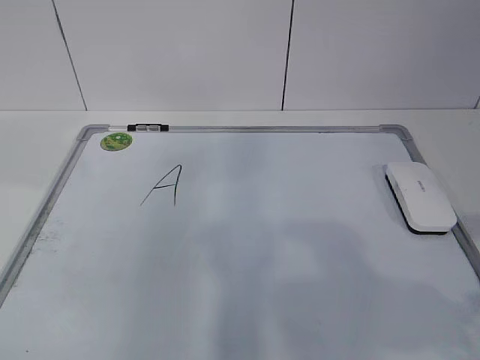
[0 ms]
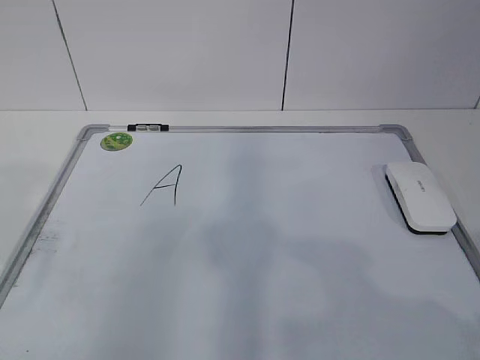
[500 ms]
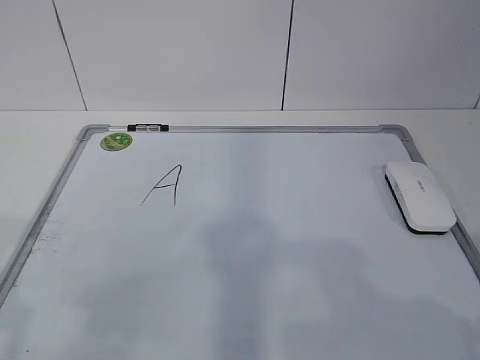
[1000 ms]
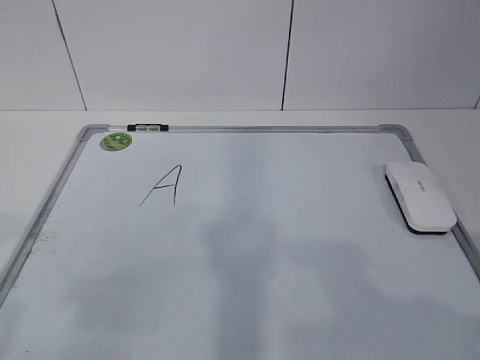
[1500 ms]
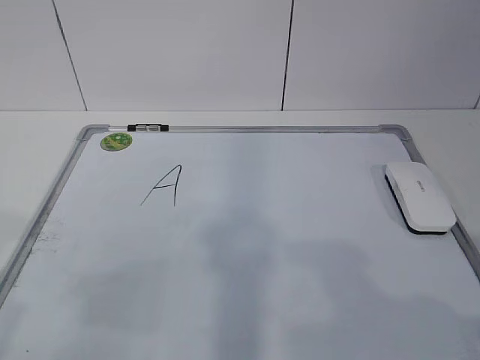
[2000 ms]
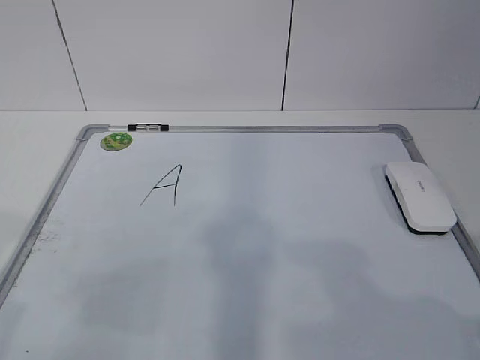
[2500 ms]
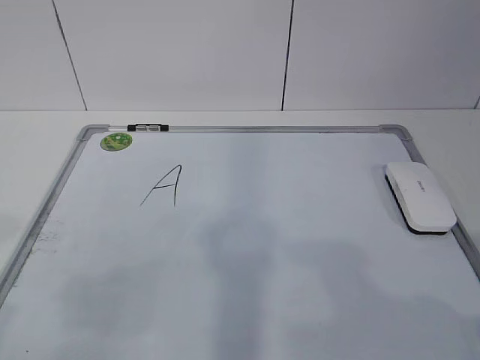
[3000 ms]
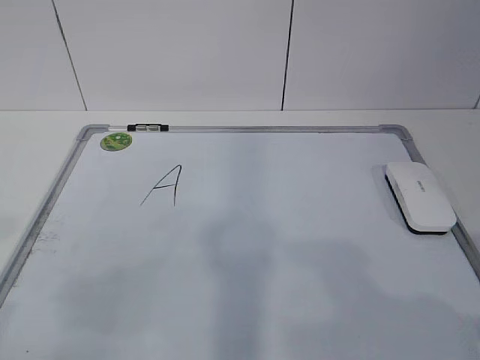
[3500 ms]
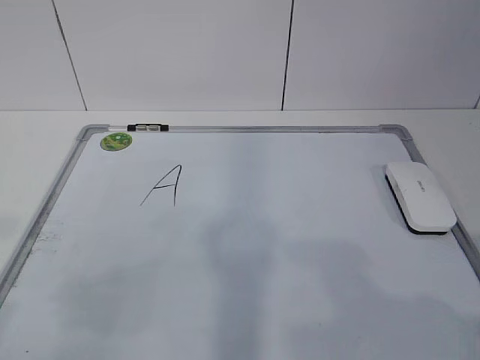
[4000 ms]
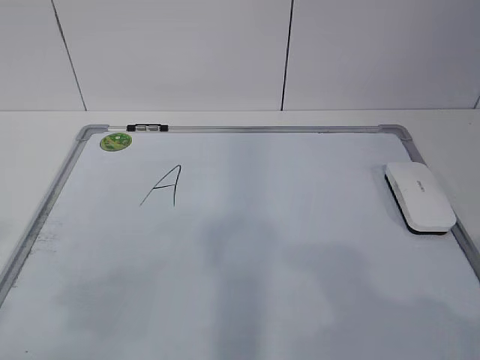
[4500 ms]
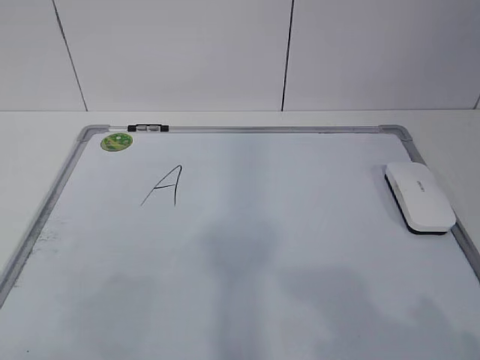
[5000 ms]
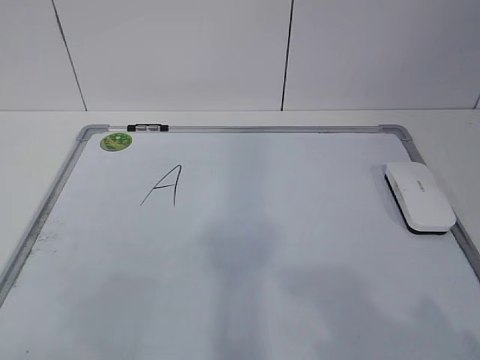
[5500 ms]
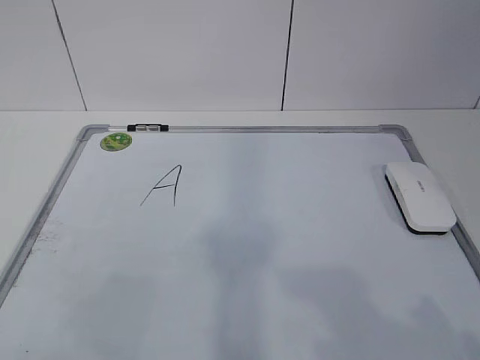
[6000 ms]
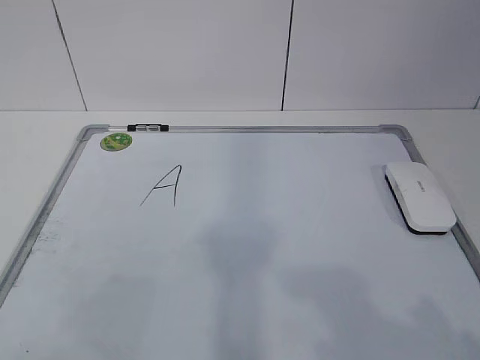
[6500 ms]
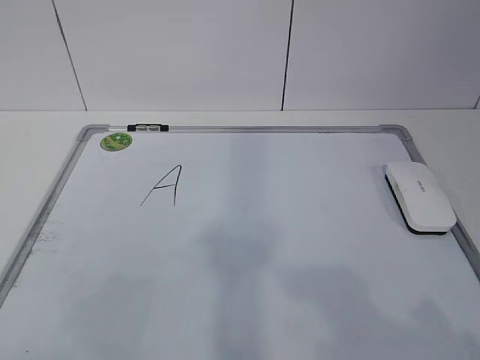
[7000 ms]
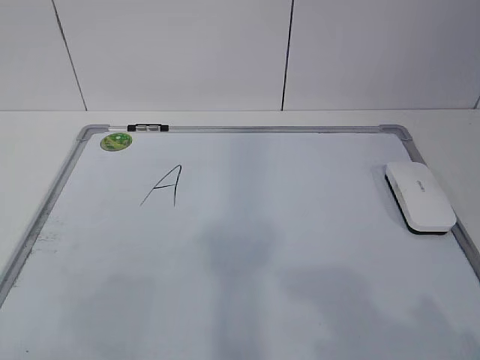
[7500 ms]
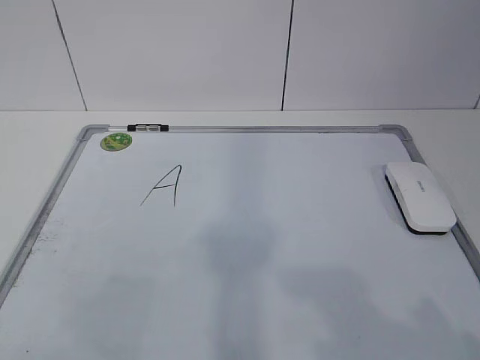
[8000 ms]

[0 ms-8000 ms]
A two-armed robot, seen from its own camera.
Task of the whole recording: pick up the eraser on the blackboard and erase the letter "a".
6000 ms to 8000 ms: Neither gripper changes place.

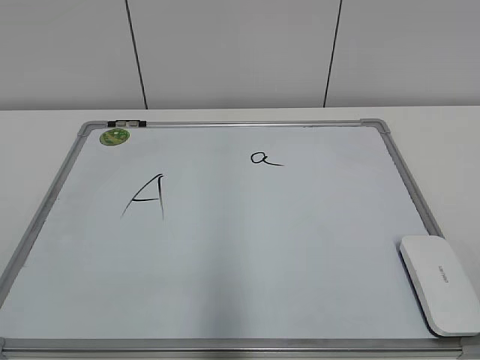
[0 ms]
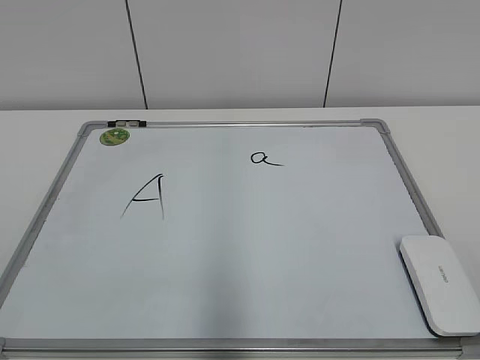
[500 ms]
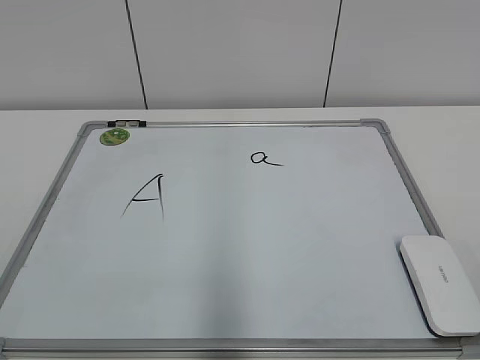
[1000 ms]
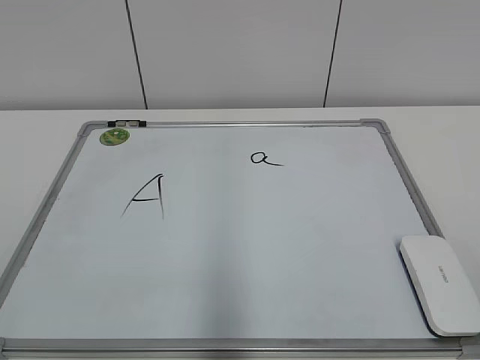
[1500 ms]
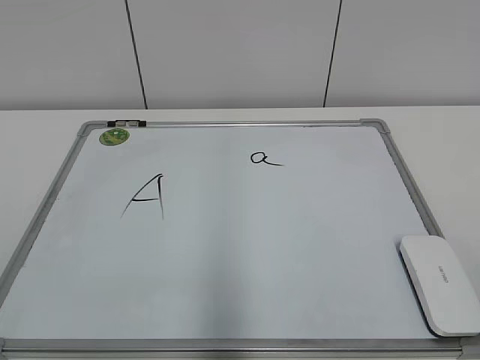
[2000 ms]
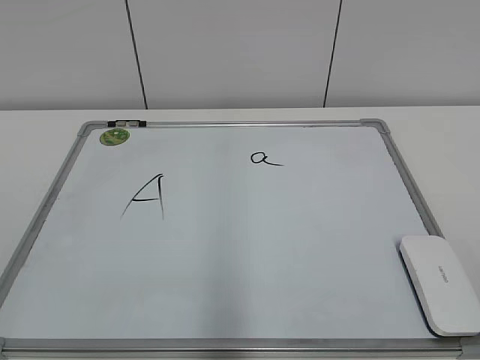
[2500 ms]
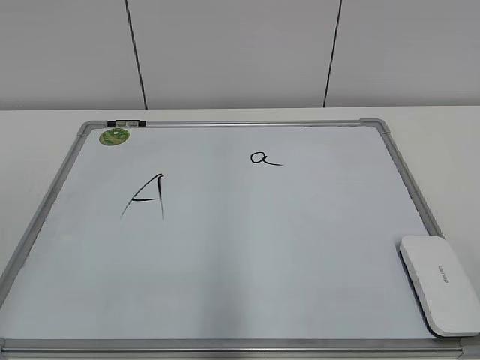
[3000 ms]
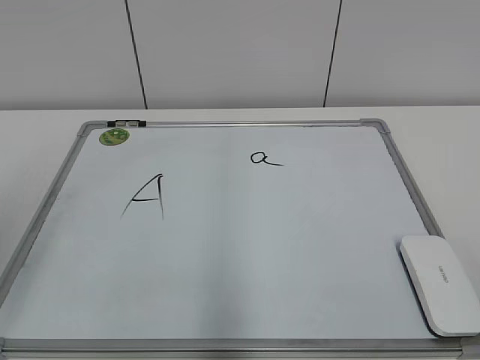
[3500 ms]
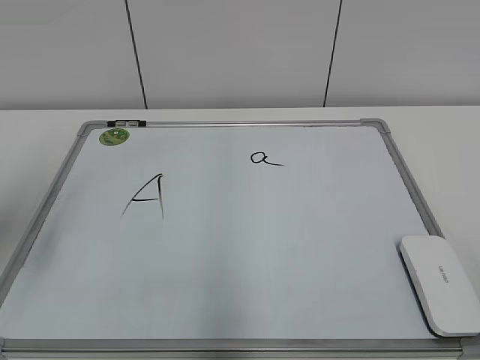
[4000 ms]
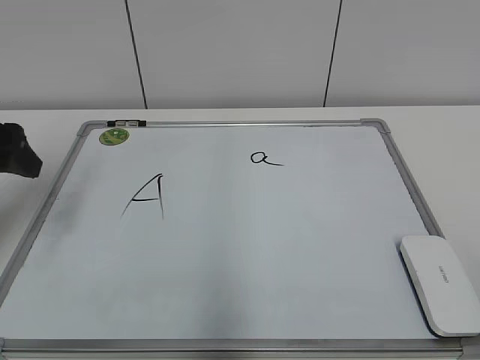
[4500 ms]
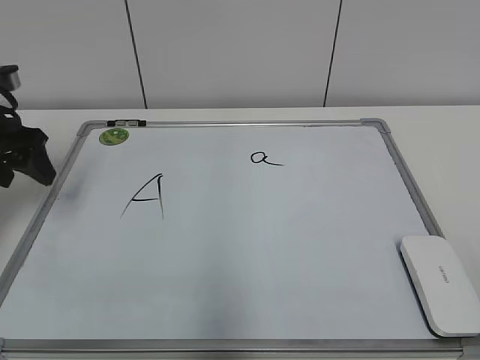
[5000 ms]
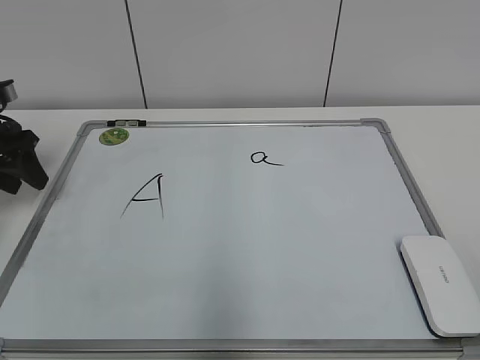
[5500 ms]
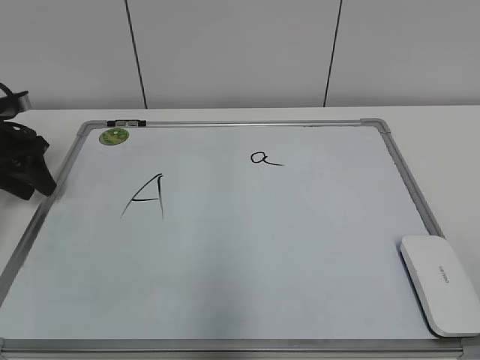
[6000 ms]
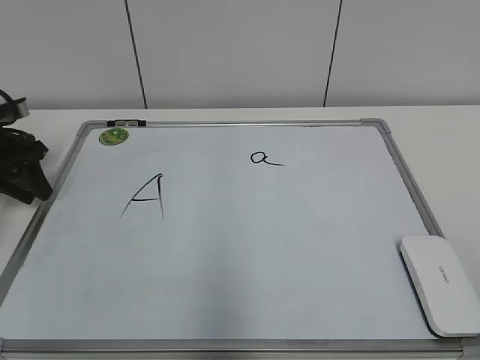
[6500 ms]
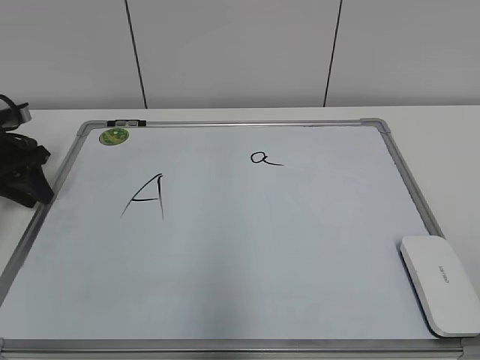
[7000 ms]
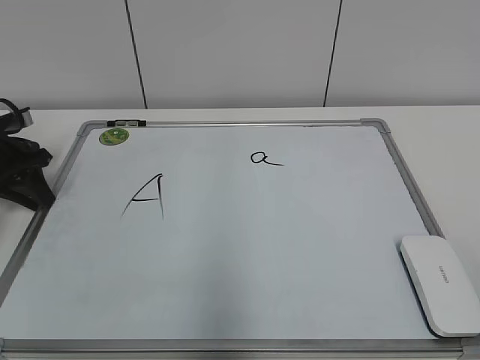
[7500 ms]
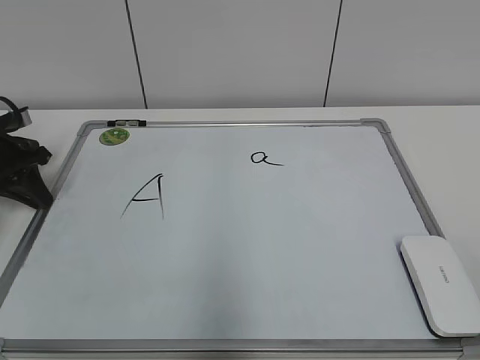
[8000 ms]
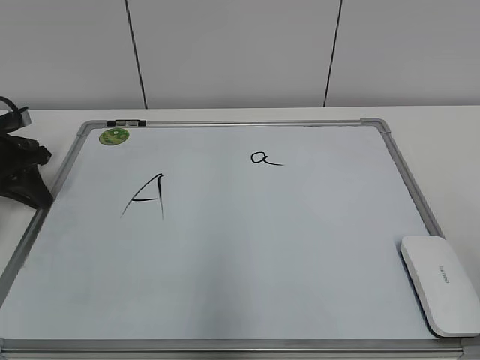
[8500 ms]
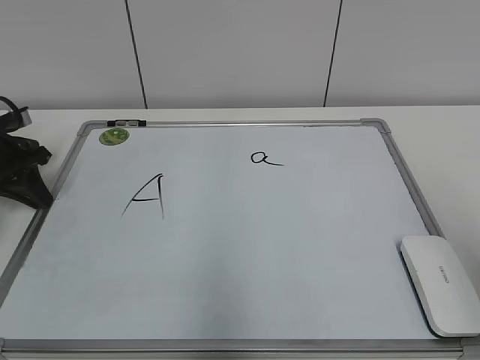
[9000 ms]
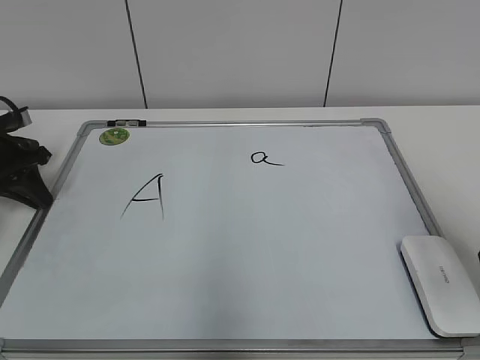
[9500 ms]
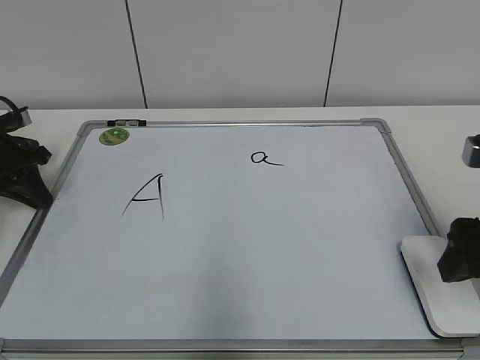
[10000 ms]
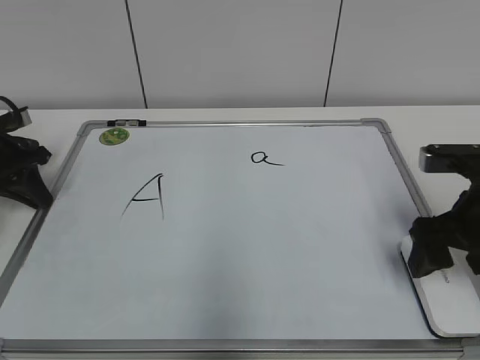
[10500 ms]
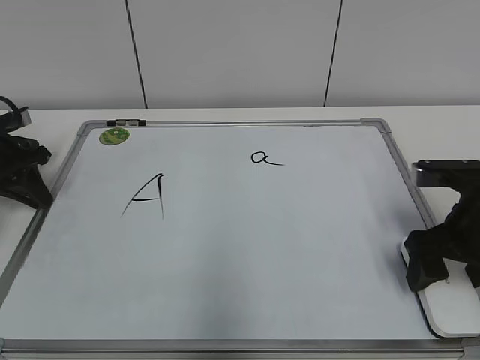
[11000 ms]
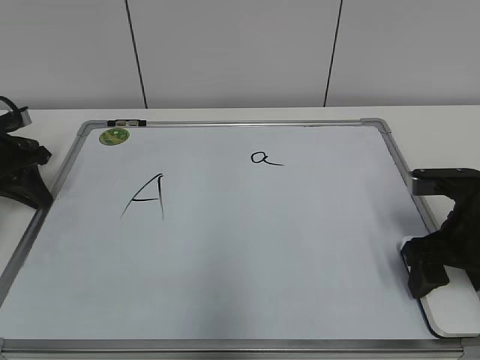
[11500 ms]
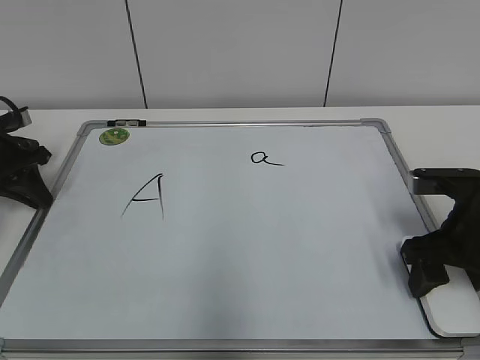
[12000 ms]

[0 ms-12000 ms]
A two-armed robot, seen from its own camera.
Task of the whole recording: pick up the eraser on the blackboard and erase the letter "a".
Step, 0 ms to 7500 ms: Hold the drawing board steady with your left hand.
2000 ms to 4000 ms: The left gripper moves forward, roughly 25 cm, and opens.
4000 ms to 6000 ms: The left gripper travels forward and downward by about 25 cm, and closes its fingers.
6000 ms to 8000 ms: The left gripper closes its fingers.
8000 ms to 10000 ms: The right gripper shifts some 25 cm forward, and opens its fingers.
10000 ms to 12000 ms: The right gripper shifts roughly 10 cm downward and forward, and closes.

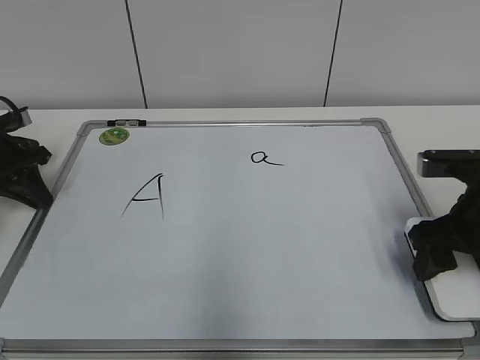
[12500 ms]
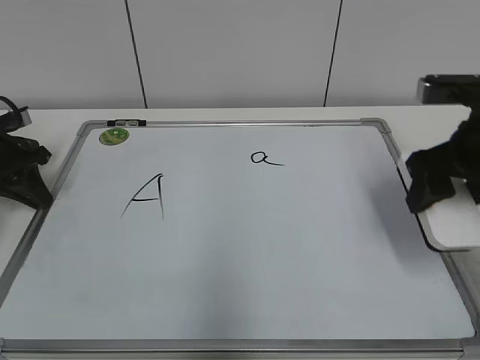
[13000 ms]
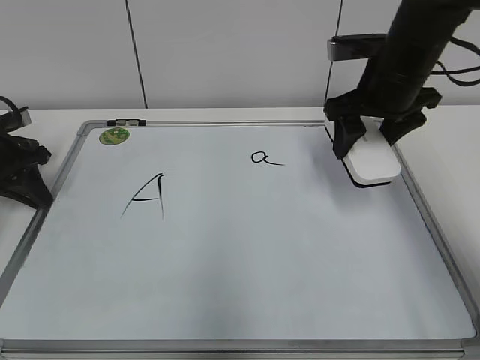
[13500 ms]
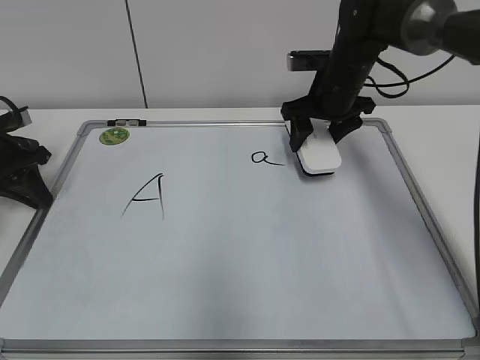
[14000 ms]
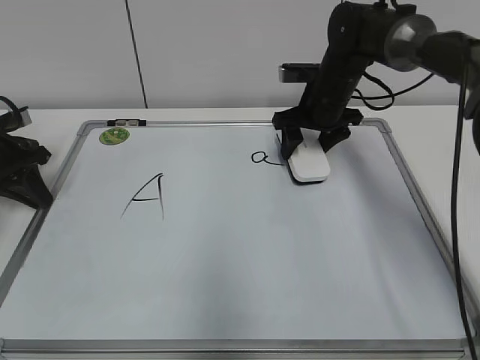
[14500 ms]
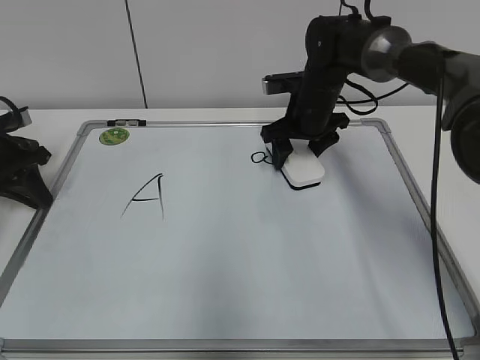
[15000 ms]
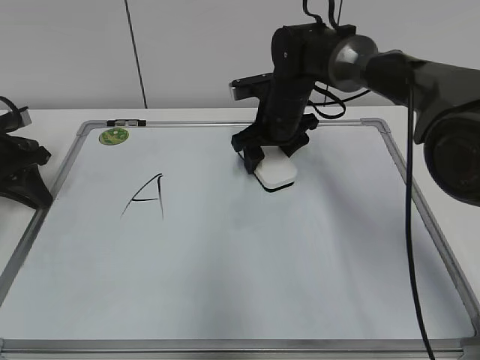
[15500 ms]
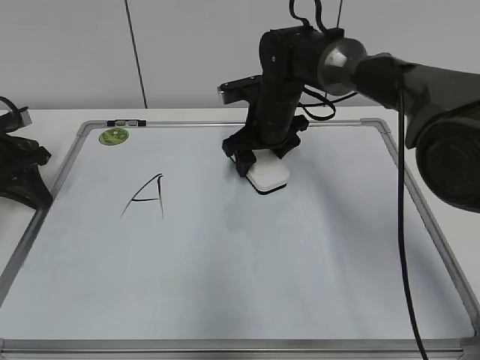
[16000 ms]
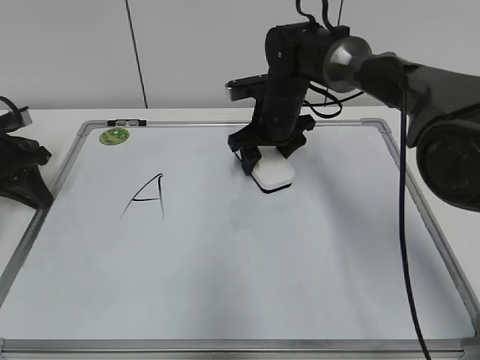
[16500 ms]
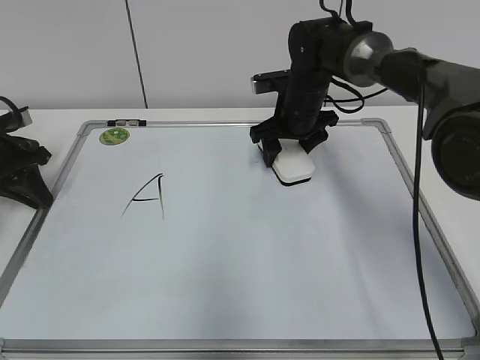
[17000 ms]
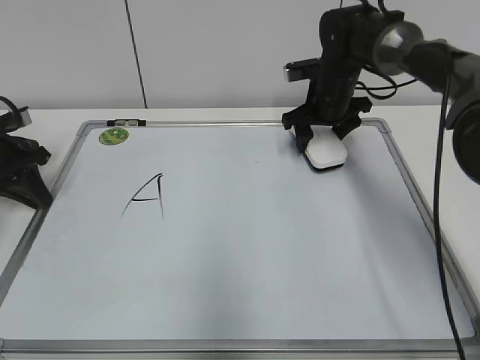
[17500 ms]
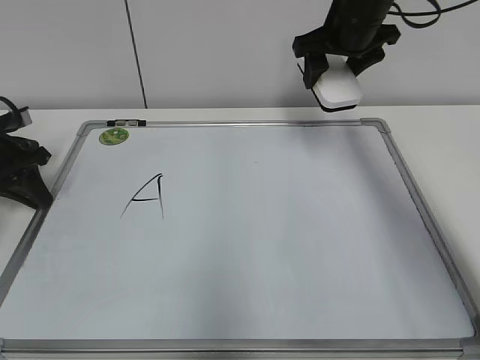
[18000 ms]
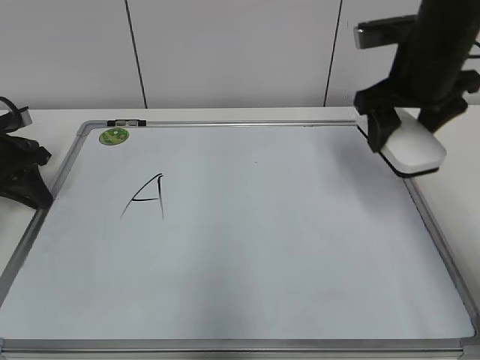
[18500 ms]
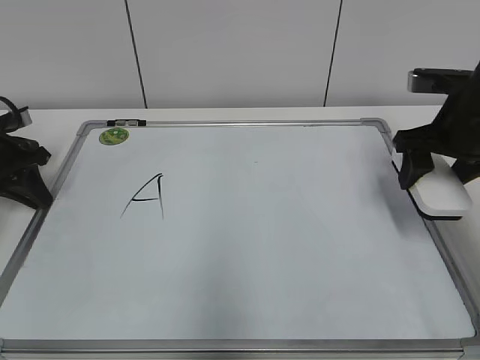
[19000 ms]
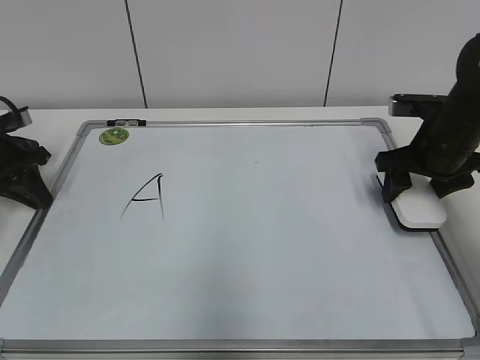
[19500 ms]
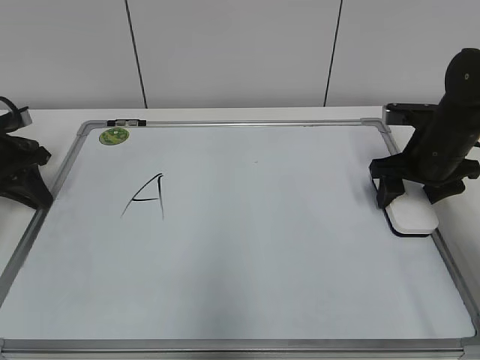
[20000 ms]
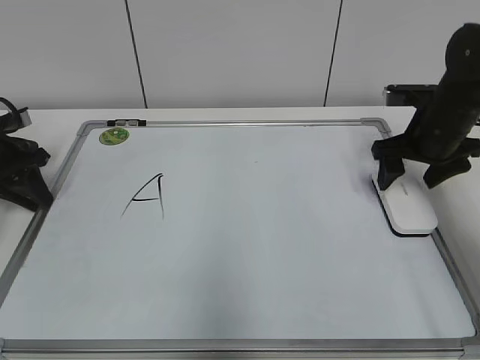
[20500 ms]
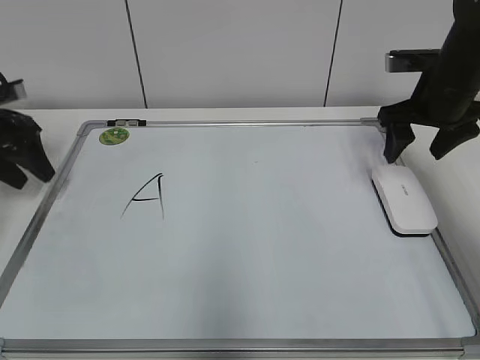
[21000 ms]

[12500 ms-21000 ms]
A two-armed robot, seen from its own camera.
Task of the whole recording: pick up the eraser on the blackboard and erase the letter "a".
Step, 12500 ms to 17000 ms: Erase the letter a with your right hand.
12500 ms to 14500 ms: The right gripper shifts approximately 25 cm forward and to the left.
14500 ms to 16500 ms: The right gripper goes some 5 cm to the left.
16500 ms to 19000 ms: The right gripper goes roughly 20 cm to the right and backward.
19000 ms to 21000 ms: The right gripper moves forward, approximately 5 cm, and opens its fingers, while the left gripper goes some 5 cm upward, and opens its fingers.
